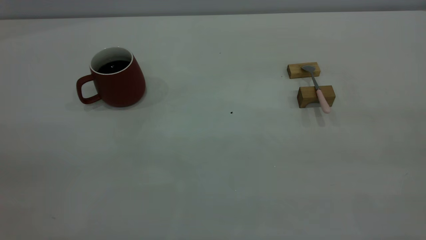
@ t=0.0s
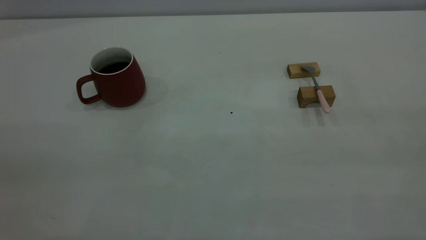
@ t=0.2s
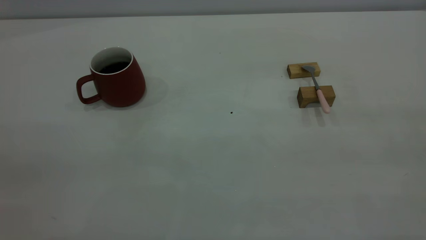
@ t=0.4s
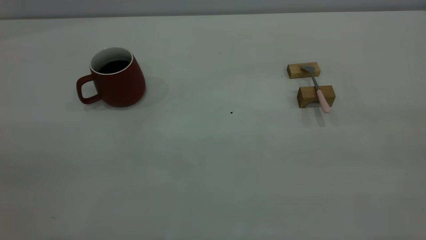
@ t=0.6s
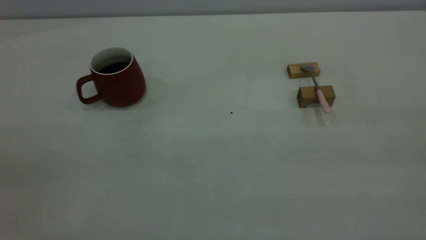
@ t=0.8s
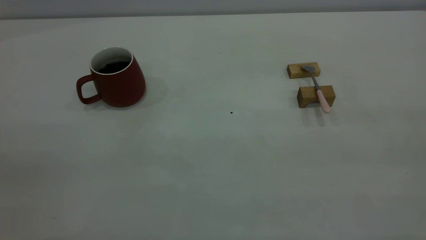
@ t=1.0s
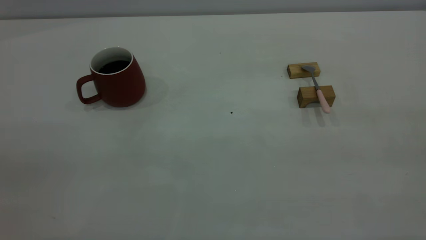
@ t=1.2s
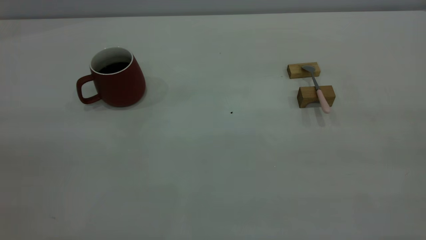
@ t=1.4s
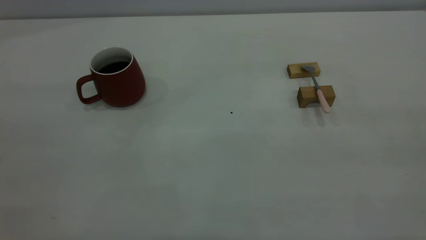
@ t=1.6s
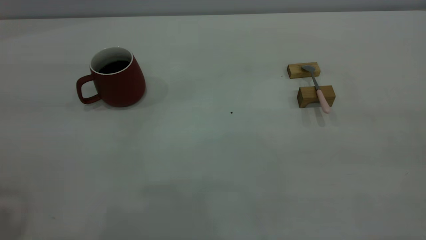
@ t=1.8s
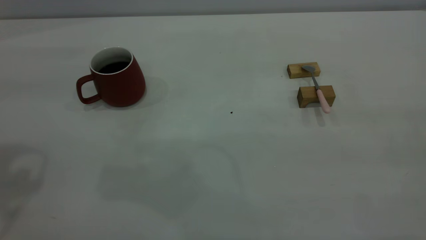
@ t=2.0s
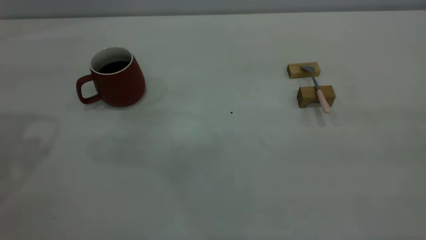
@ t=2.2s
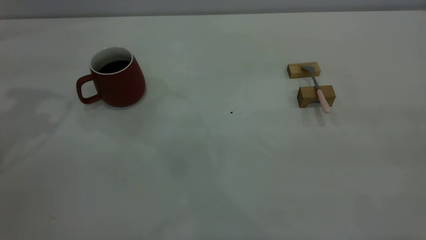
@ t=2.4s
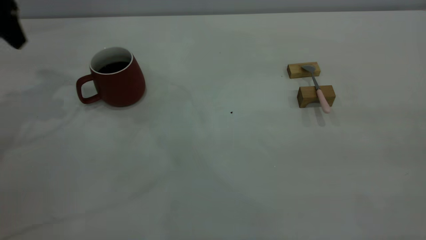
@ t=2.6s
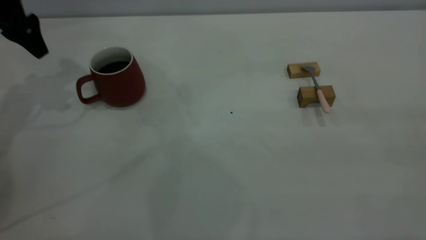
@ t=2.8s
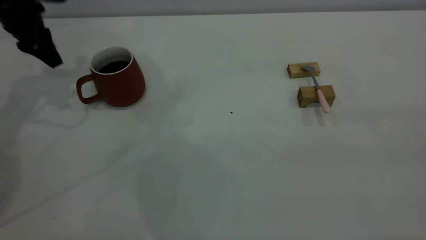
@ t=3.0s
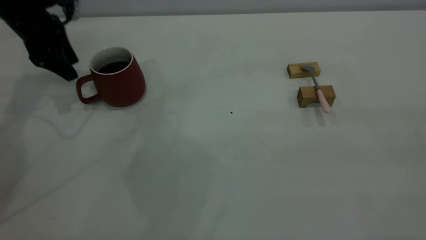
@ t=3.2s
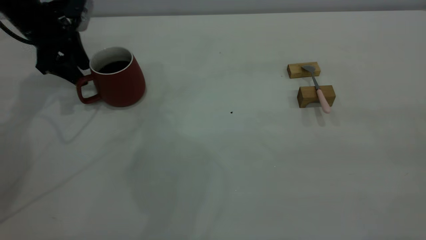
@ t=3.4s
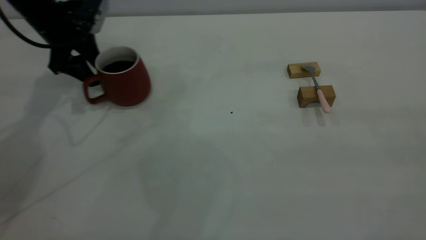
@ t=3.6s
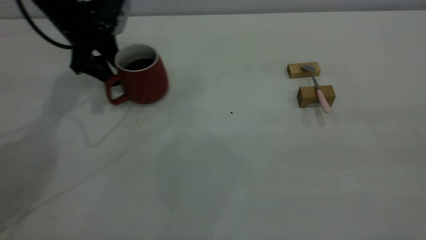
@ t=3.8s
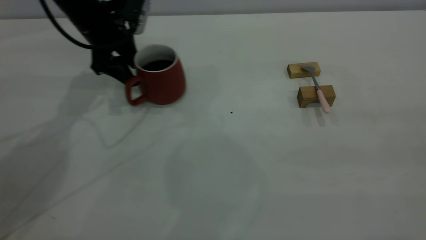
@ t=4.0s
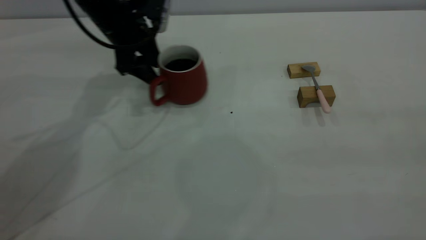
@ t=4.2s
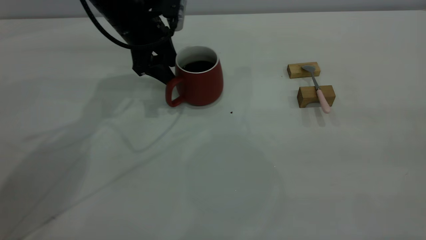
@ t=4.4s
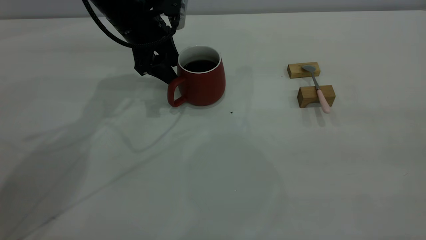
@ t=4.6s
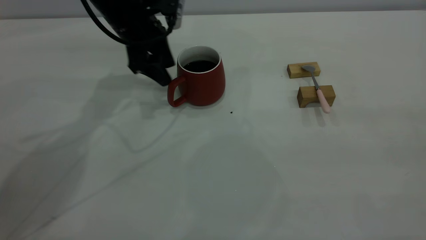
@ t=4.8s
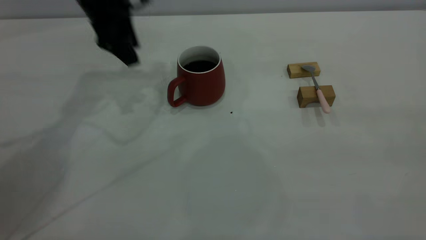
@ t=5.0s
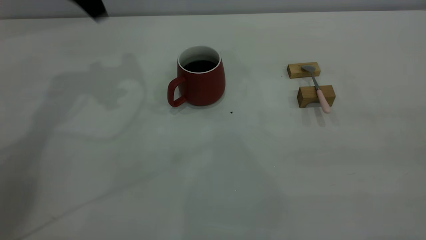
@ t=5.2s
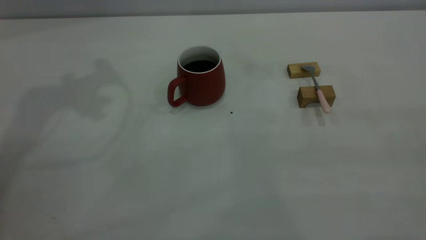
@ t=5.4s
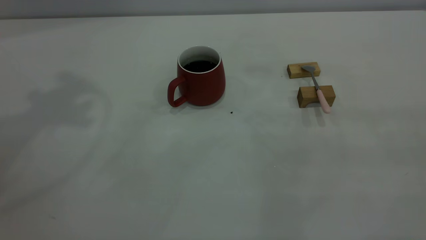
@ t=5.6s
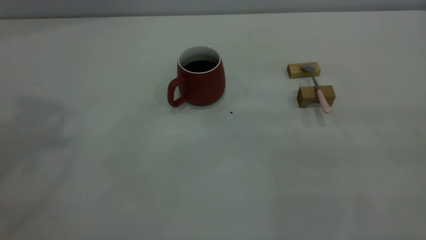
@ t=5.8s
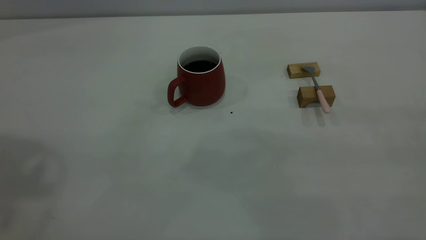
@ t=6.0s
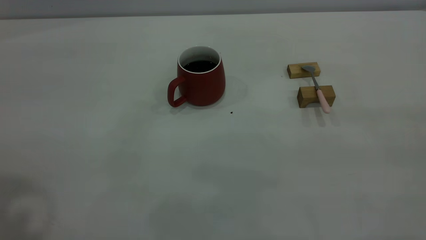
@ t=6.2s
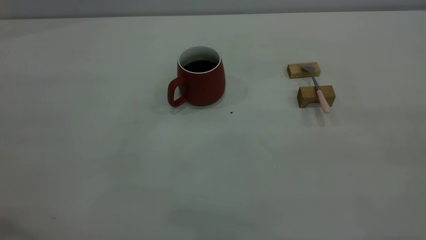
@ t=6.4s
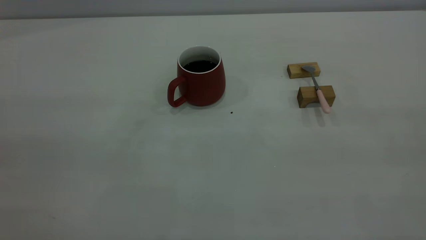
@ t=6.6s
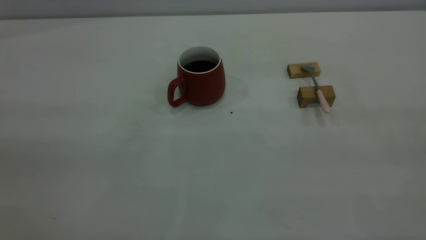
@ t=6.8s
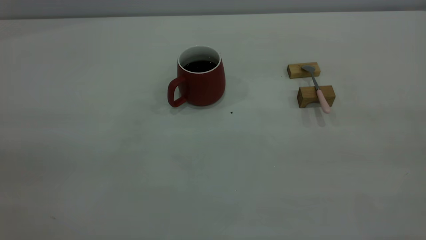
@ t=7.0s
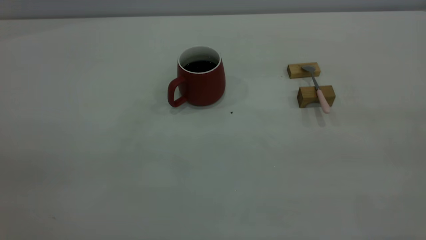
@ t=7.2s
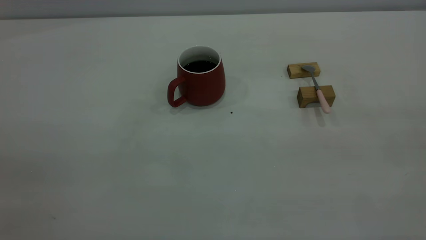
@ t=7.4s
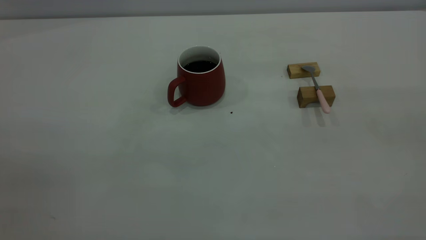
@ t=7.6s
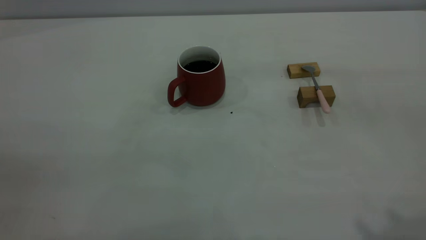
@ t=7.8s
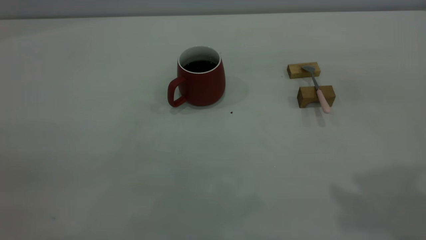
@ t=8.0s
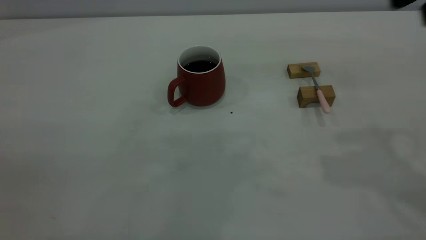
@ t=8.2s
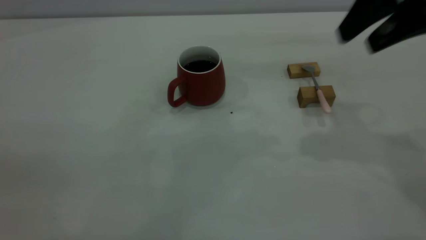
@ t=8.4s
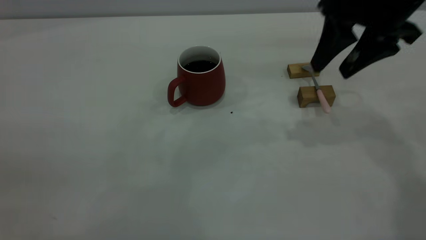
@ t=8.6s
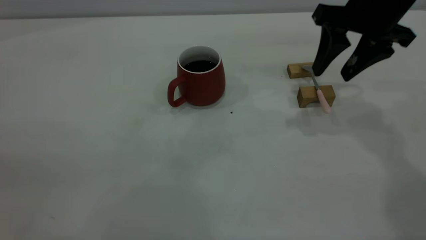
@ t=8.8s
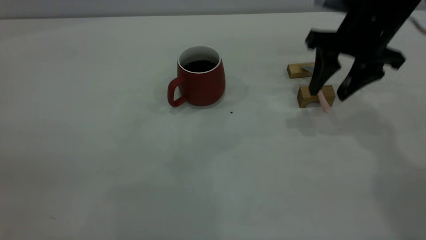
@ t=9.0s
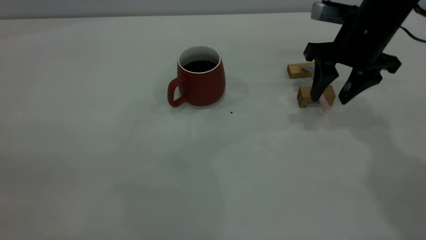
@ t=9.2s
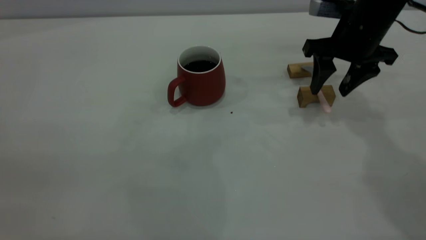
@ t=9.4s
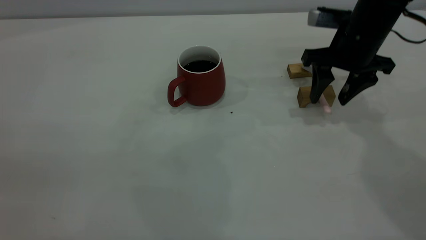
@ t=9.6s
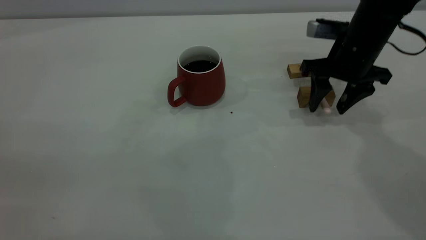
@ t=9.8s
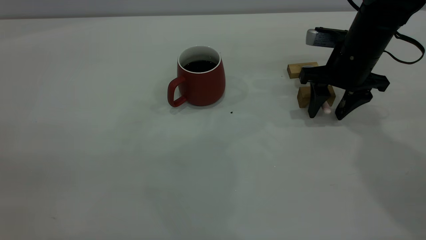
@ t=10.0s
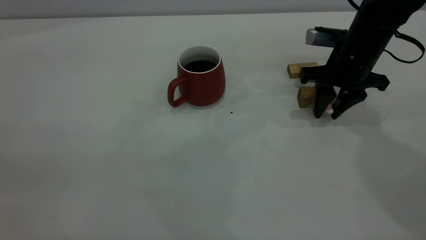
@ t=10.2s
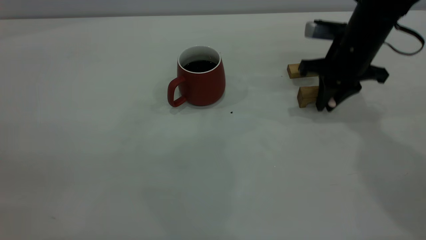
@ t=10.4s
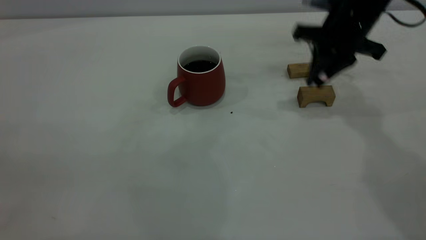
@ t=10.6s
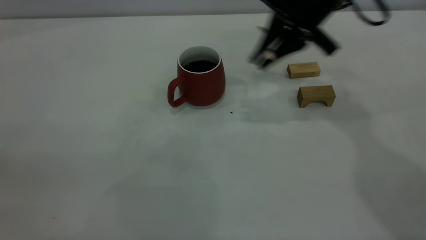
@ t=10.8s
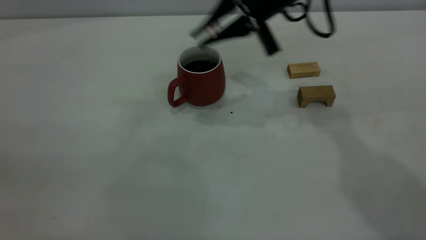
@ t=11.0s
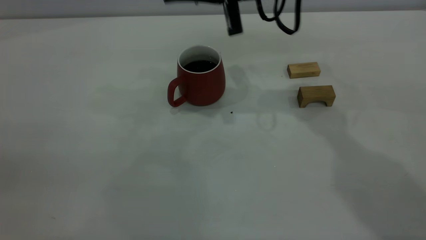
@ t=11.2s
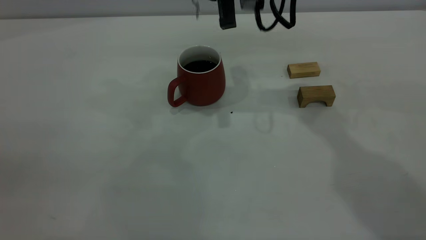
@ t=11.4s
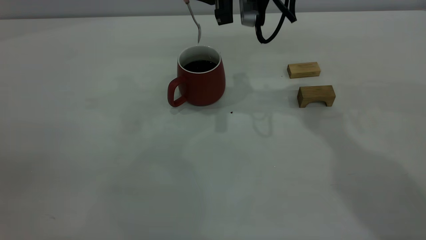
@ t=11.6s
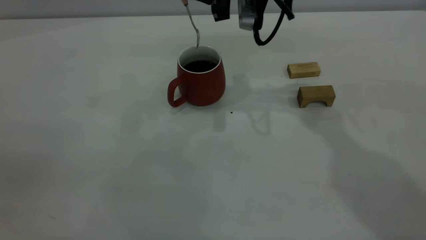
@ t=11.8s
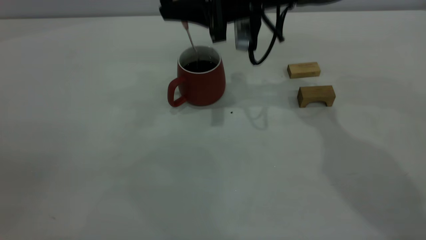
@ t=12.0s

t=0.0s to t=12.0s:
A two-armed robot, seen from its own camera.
Step, t=0.0s to t=4.8s: Move the cup with coffee to the center of view.
Step, t=5.0s to t=10.4s: Pick up the spoon.
t=1.6s to t=3.0s: The left gripper is displaced forward and downward by about 40 cm.
t=3.0s to t=4.4s: The left gripper shifts about 20 cm to the right.
t=4.4s to t=6.0s: The left gripper moves upward and backward, roughly 40 cm.
t=7.6s to t=9.0s: The right gripper travels forward and downward by roughly 40 cm.
t=9.0s to t=10.4s: The right gripper changes place by about 5 cm, and closes up.
t=10.4s to t=12.0s: The right gripper goes some 15 cm to the left.

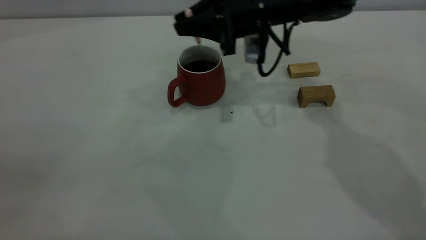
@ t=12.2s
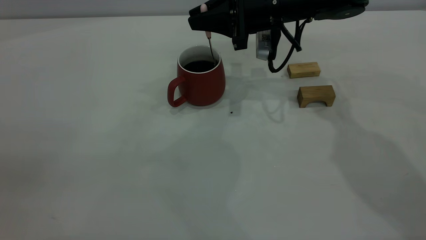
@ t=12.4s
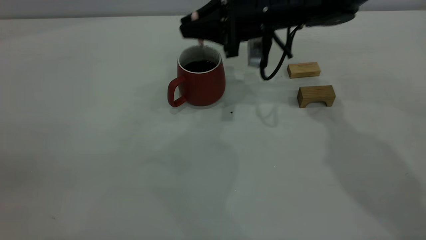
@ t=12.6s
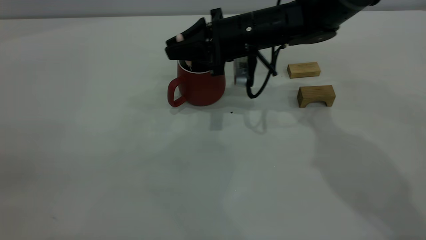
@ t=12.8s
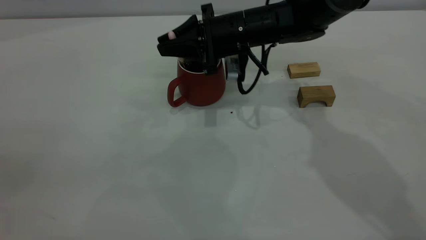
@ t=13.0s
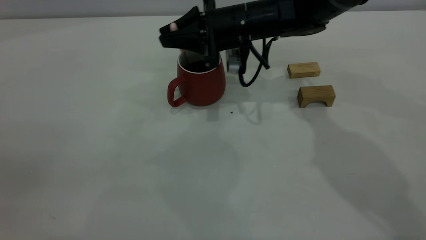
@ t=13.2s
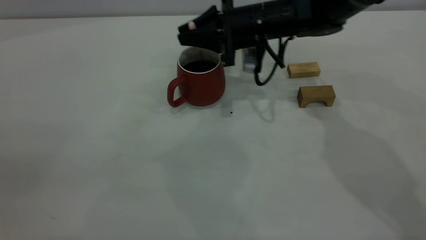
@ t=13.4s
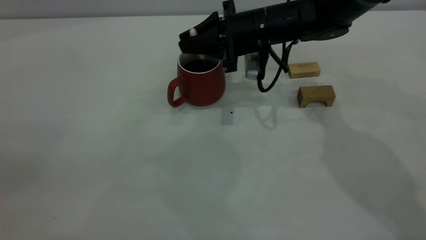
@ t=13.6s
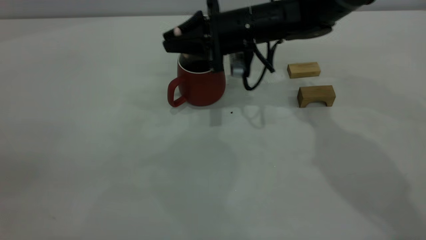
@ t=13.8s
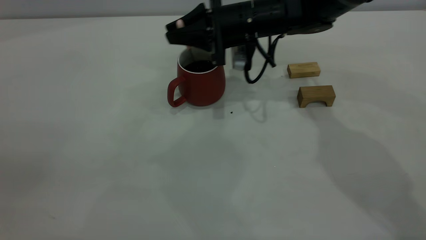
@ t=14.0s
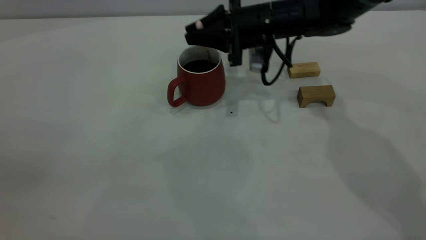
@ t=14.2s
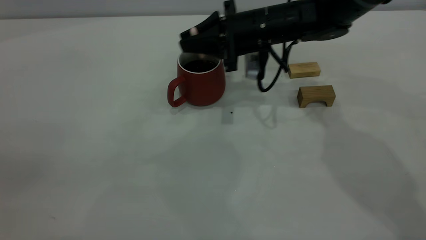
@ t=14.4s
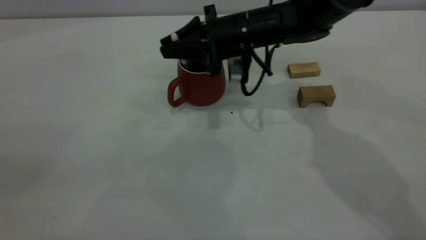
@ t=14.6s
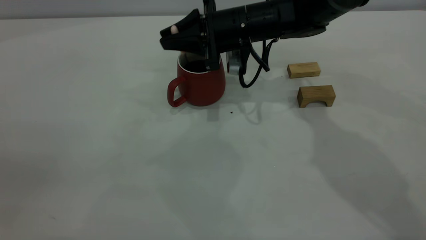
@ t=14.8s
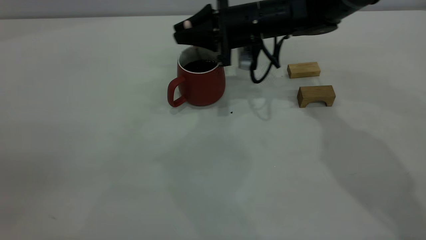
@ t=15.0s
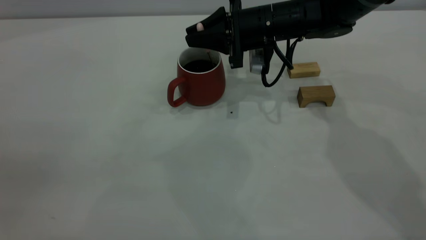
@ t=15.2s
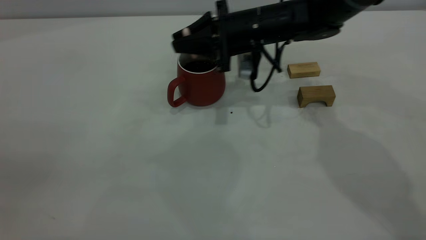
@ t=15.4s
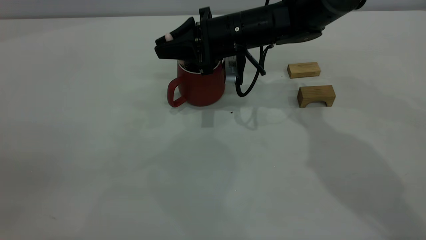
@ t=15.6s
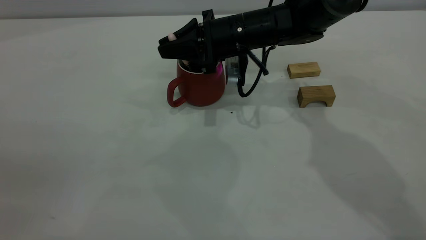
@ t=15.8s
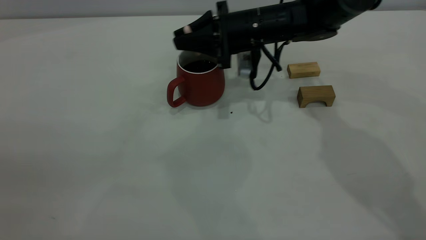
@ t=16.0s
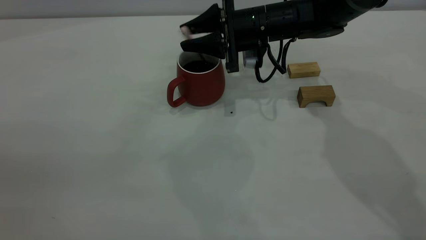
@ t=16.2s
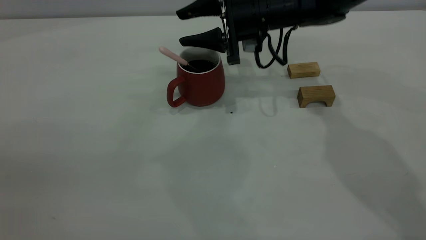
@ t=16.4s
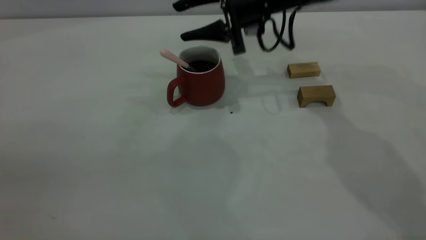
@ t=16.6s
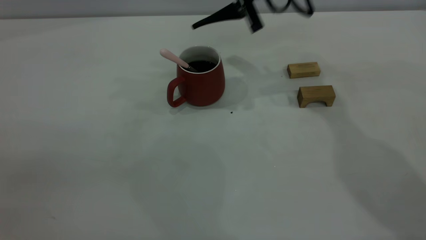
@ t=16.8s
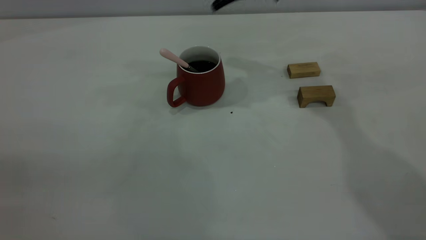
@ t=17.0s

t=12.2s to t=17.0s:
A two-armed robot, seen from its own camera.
Step, t=12.2s to t=16.4s: Stir the coffee in the cup.
t=12.2s to t=15.4s: The grippers make only small movements.
t=15.4s to t=17.0s: The right gripper moves upward, some 15 cm, and opens up.
